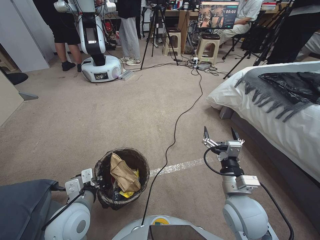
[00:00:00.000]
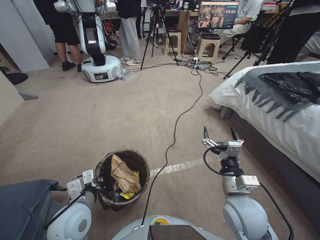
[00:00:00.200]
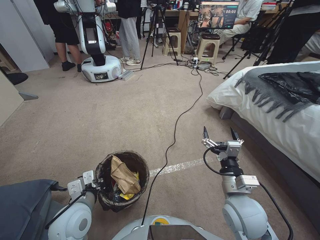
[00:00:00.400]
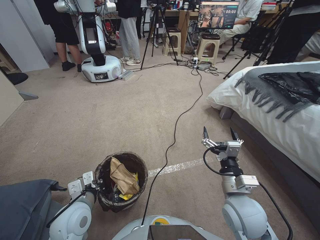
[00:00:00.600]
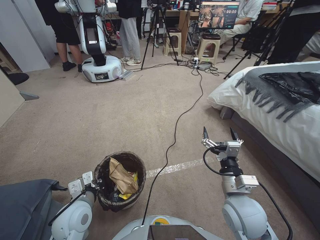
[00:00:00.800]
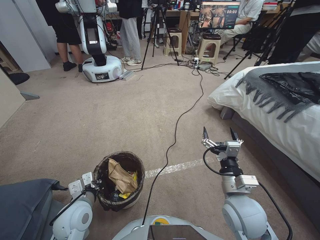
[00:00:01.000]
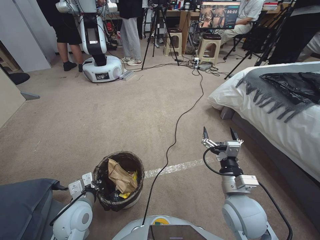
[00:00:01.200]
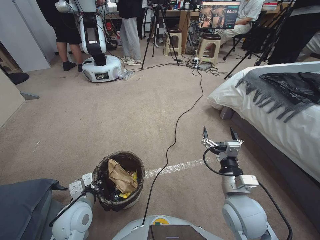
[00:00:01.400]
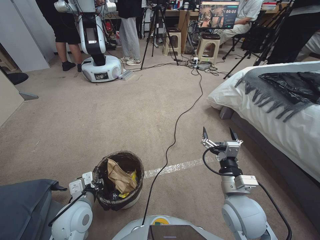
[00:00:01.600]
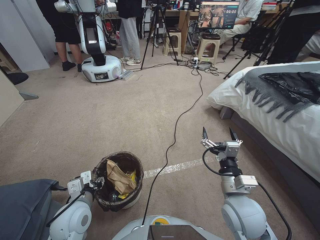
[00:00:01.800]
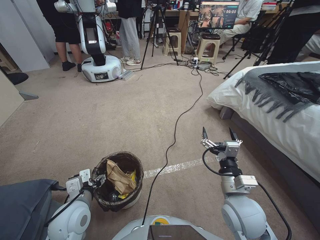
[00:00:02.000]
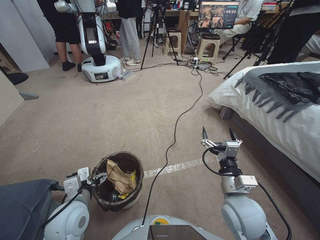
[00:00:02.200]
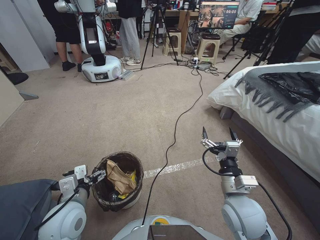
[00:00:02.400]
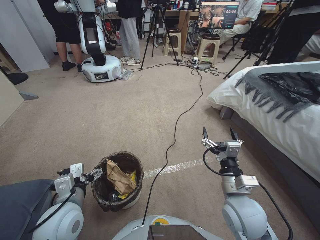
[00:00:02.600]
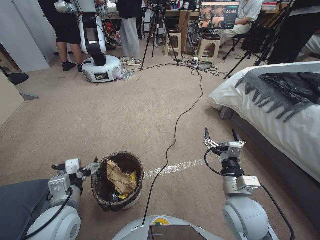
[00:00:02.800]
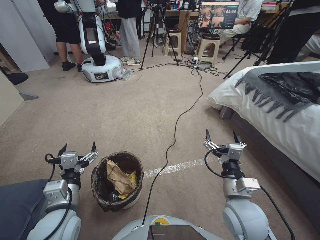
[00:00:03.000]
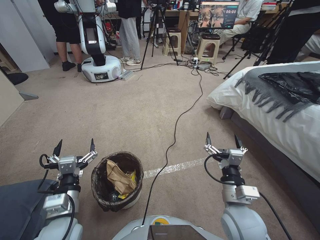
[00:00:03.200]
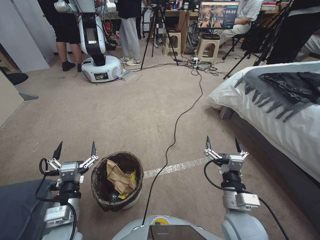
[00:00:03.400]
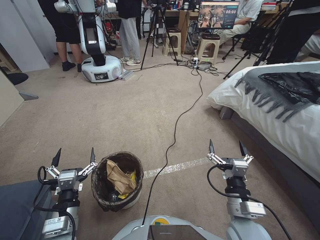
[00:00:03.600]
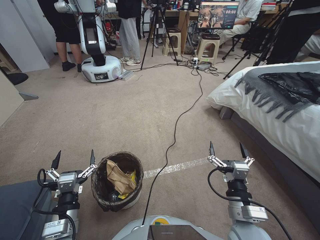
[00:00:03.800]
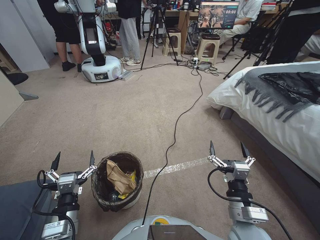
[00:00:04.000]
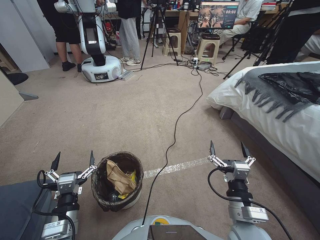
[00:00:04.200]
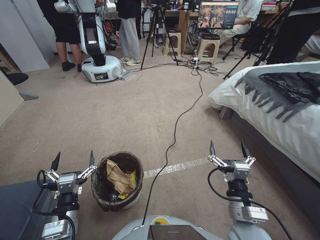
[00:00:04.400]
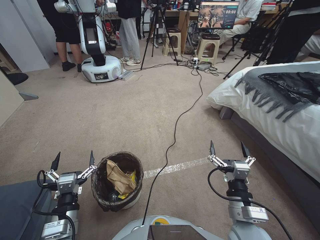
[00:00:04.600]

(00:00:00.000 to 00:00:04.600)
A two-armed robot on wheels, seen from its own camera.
Task of the whole recording: Pick up the trash bin, then pick up the garbage from the floor and place it into the trash bin.
00:00:00.000 - 00:00:01.600: The left gripper goes approximately 5 cm downward.
00:00:01.600 - 00:00:03.000: The left gripper is displaced upward by about 5 cm, and opens its fingers.
00:00:03.000 - 00:00:04.600: The right gripper is displaced backward by some 5 cm. The left gripper moves downward and backward, some 10 cm.
